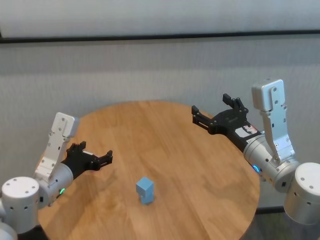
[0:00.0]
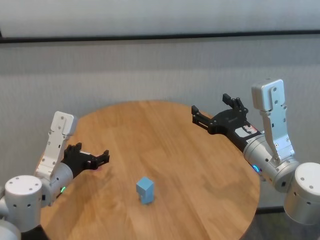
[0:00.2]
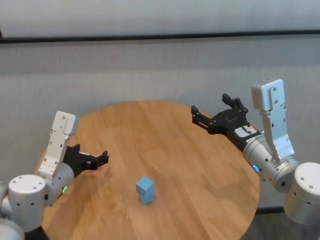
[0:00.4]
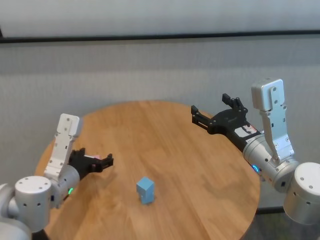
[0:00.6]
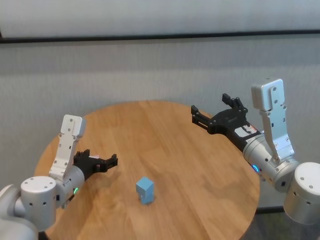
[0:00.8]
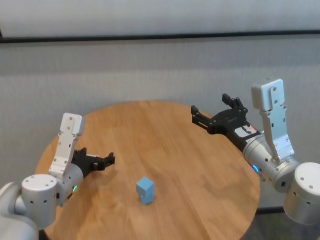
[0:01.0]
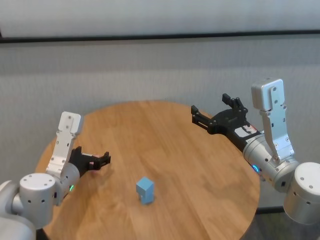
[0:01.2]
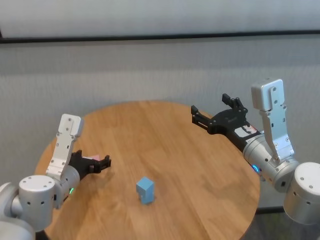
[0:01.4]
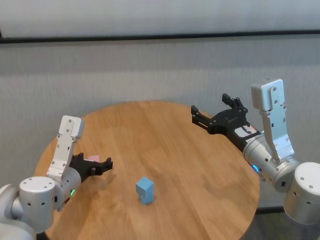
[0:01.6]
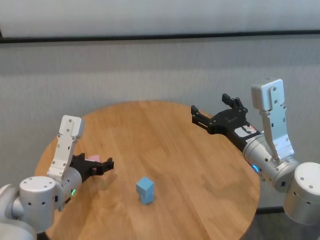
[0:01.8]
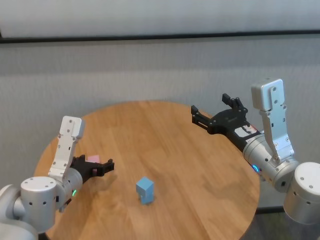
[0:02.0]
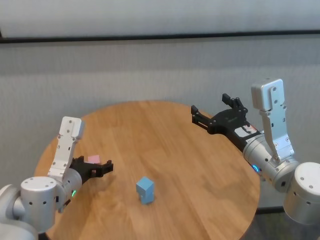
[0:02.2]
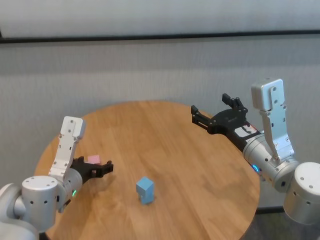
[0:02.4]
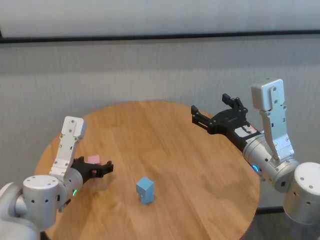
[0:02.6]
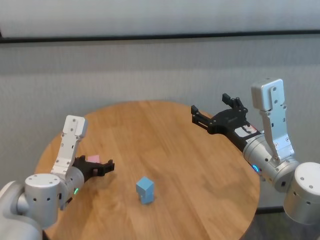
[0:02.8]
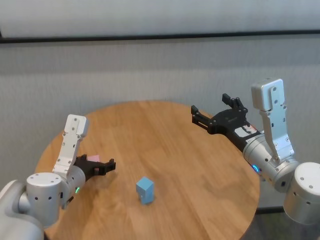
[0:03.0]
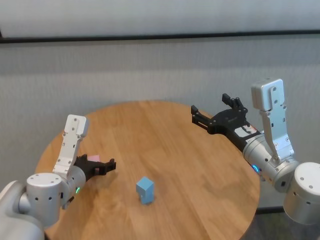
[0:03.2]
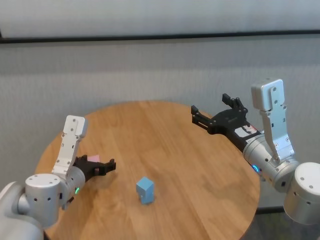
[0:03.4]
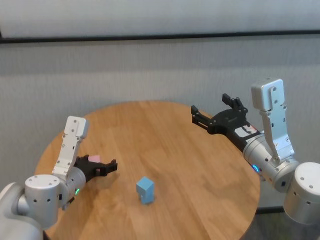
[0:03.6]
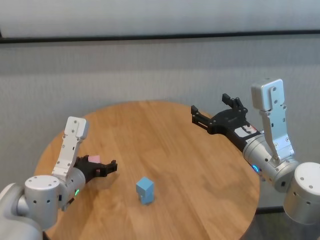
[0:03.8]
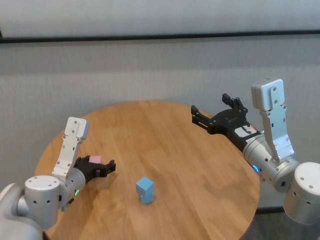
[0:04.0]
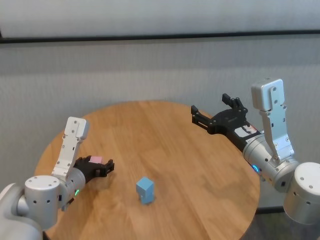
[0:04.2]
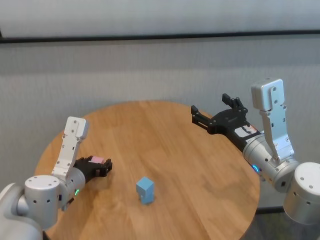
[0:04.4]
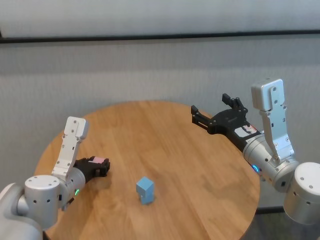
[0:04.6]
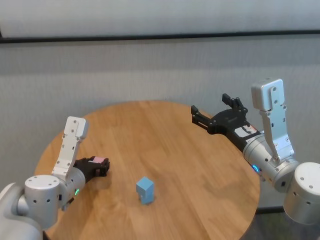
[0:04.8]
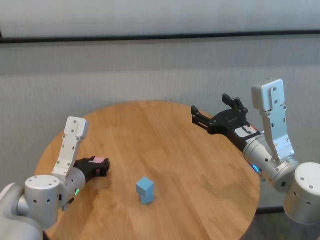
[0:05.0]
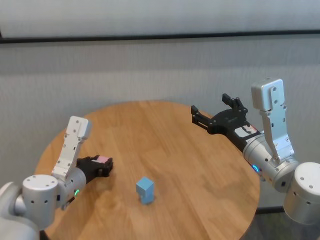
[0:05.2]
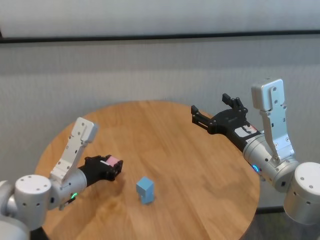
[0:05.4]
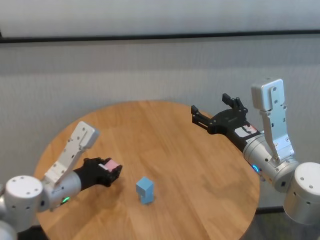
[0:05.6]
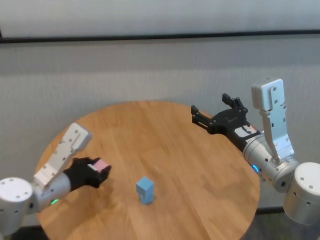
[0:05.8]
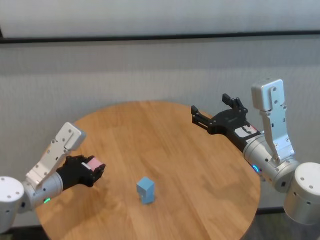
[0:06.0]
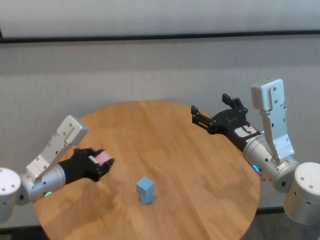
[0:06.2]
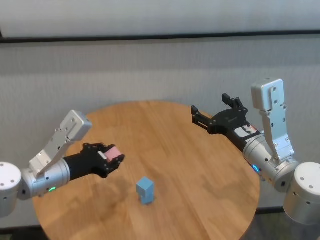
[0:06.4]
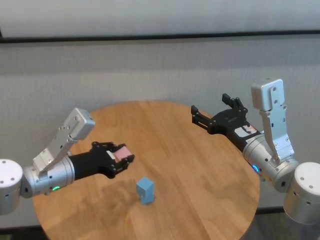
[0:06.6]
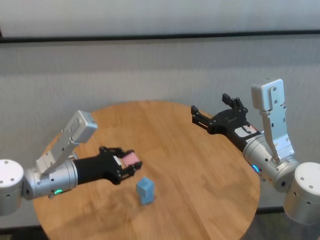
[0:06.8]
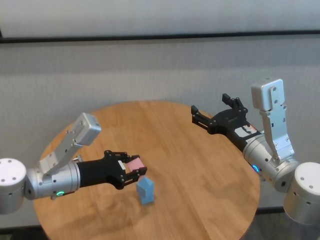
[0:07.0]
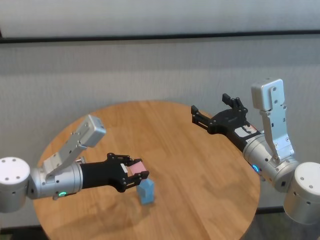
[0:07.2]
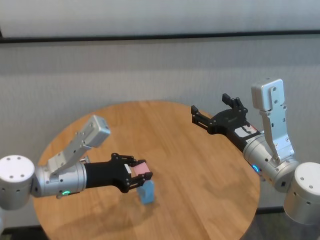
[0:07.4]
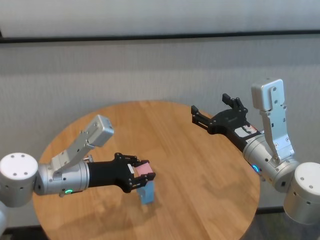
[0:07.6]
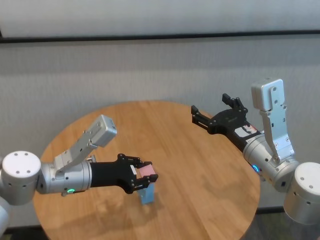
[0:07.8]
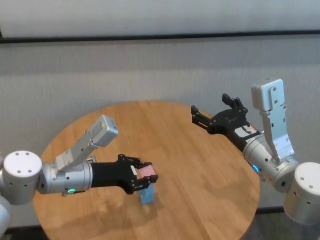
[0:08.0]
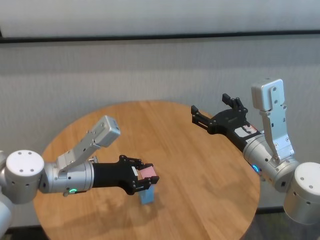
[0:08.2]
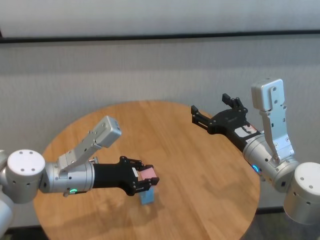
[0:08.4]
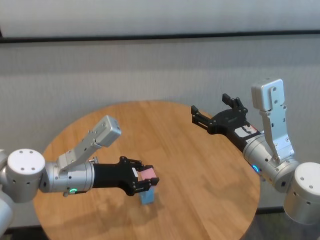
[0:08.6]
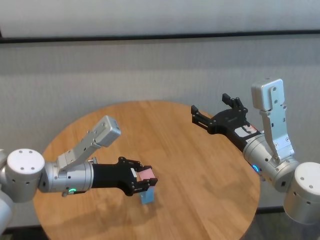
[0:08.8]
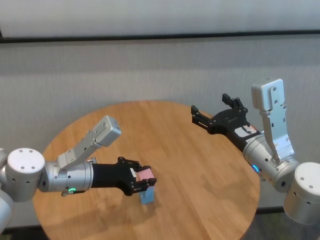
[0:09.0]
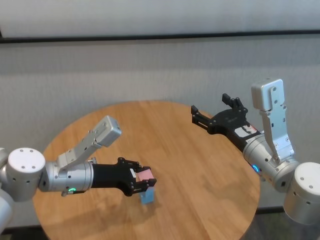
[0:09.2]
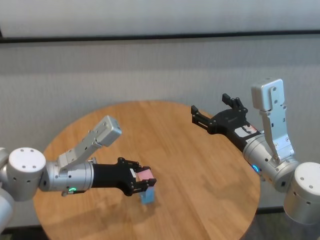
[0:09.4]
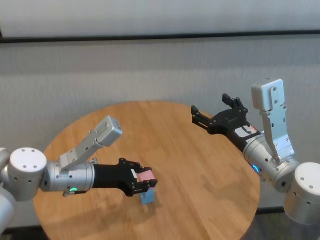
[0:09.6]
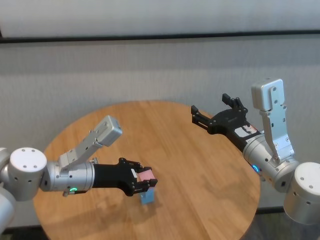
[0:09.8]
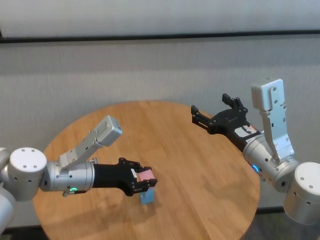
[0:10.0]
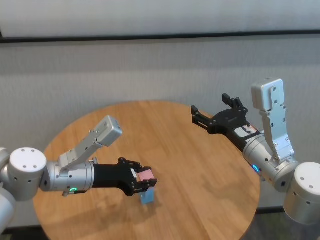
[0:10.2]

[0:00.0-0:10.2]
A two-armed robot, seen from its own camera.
Task of the whole recording: stack building blocks on the table.
Step, 0:00.0 to 0:04.8: Grasp the pink building block with left gripper.

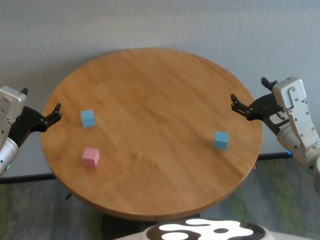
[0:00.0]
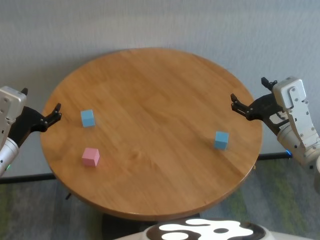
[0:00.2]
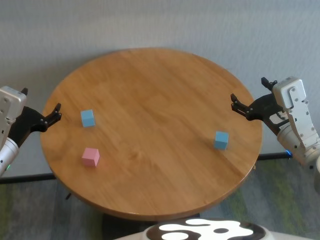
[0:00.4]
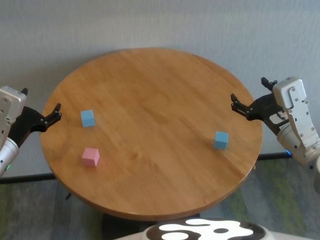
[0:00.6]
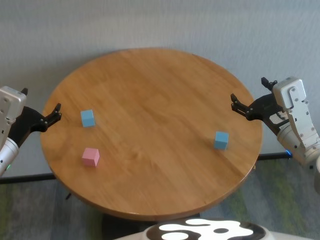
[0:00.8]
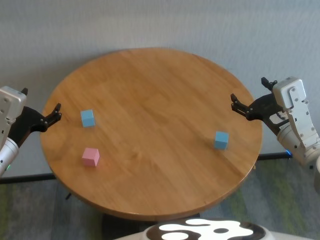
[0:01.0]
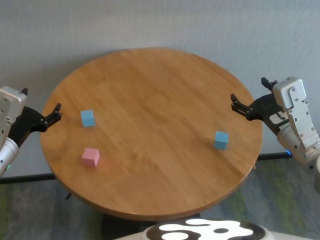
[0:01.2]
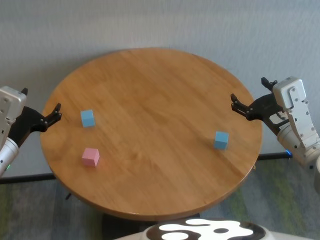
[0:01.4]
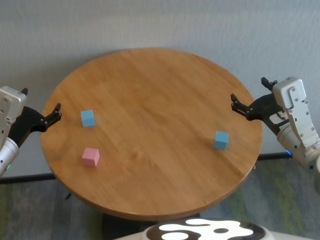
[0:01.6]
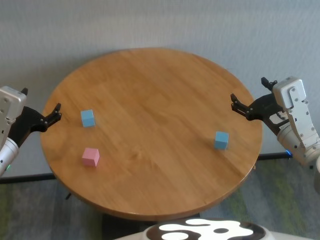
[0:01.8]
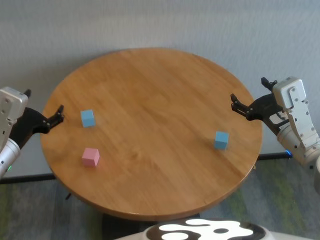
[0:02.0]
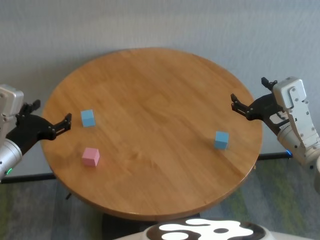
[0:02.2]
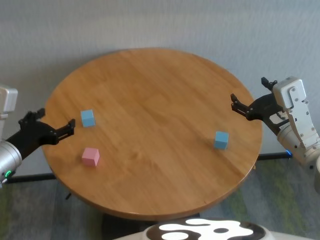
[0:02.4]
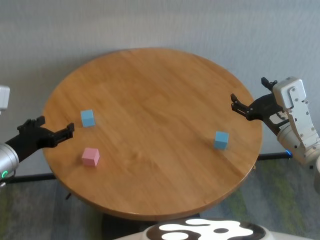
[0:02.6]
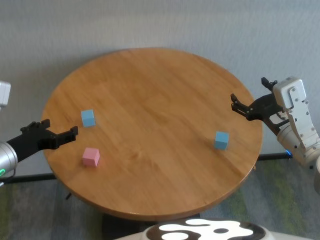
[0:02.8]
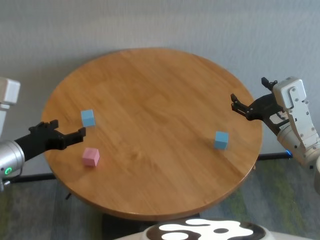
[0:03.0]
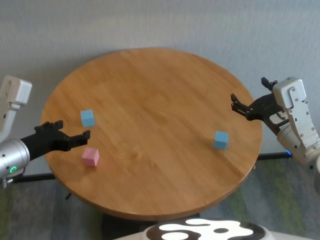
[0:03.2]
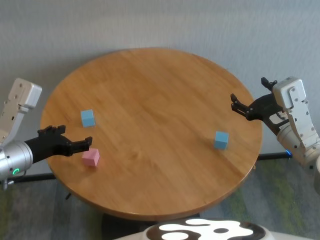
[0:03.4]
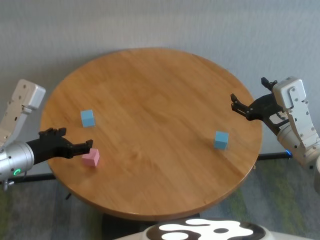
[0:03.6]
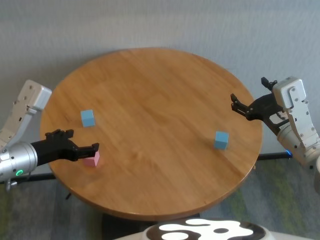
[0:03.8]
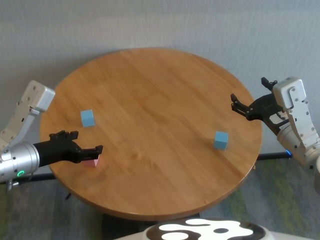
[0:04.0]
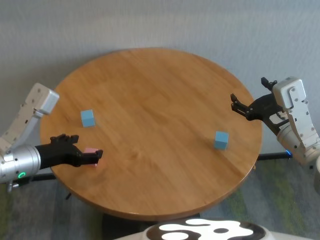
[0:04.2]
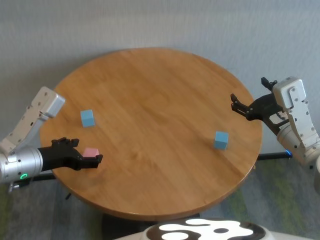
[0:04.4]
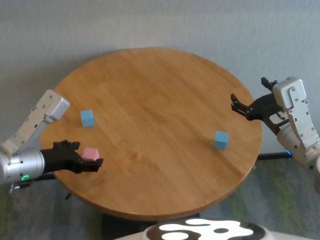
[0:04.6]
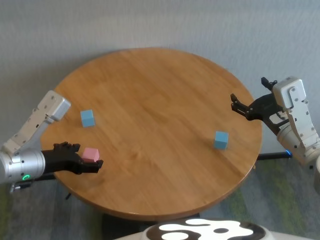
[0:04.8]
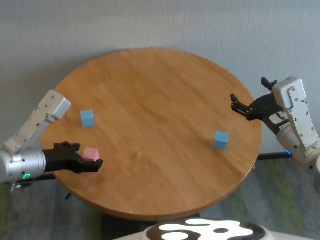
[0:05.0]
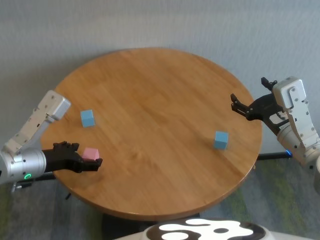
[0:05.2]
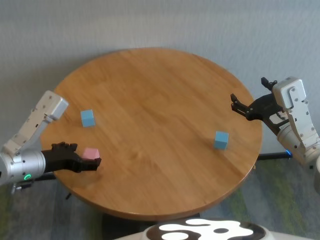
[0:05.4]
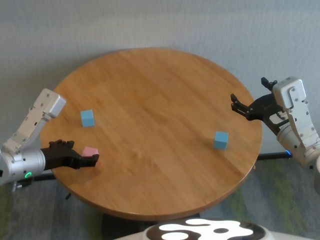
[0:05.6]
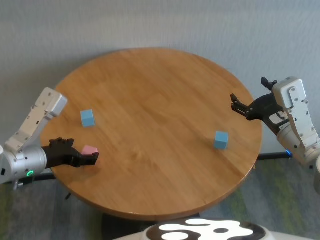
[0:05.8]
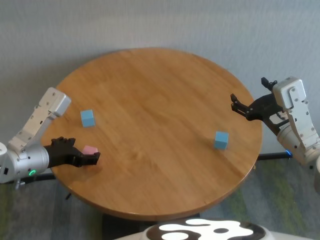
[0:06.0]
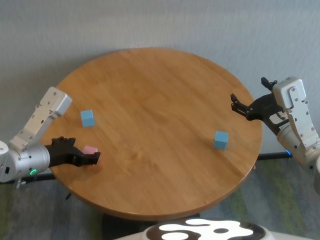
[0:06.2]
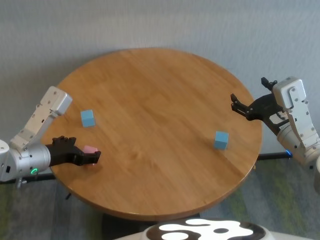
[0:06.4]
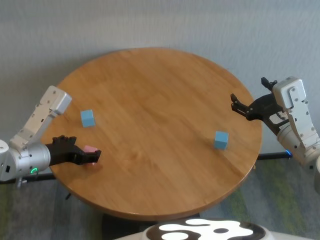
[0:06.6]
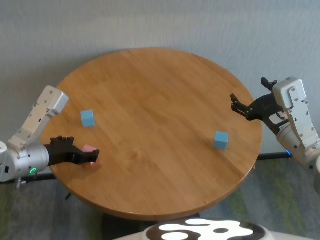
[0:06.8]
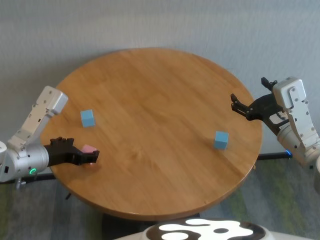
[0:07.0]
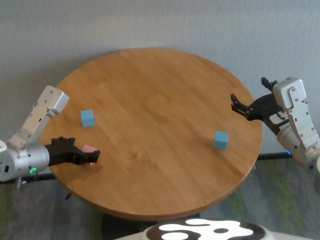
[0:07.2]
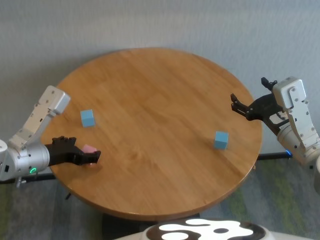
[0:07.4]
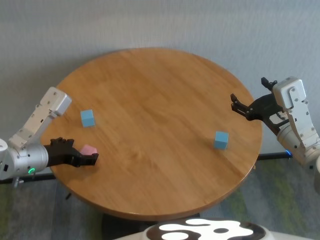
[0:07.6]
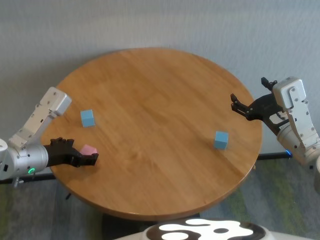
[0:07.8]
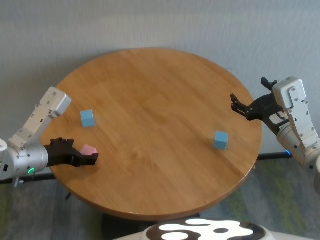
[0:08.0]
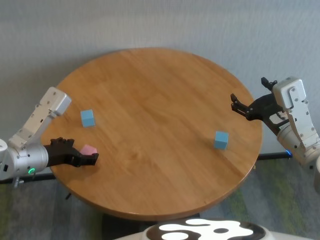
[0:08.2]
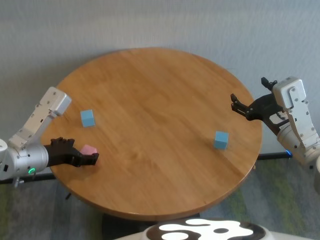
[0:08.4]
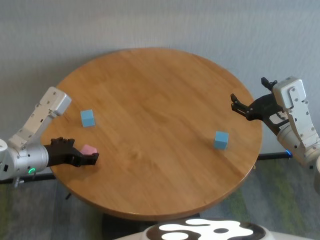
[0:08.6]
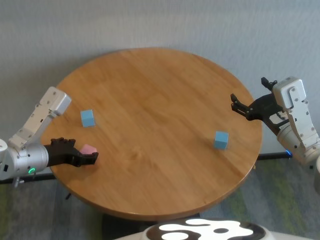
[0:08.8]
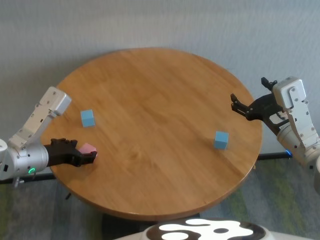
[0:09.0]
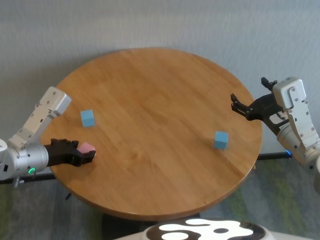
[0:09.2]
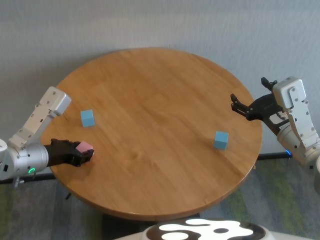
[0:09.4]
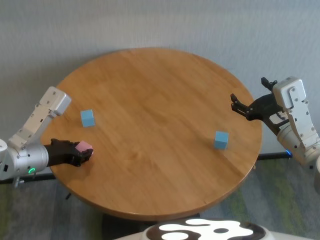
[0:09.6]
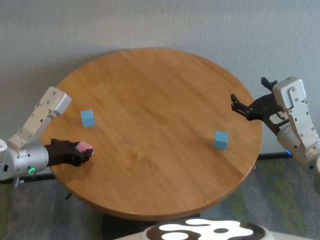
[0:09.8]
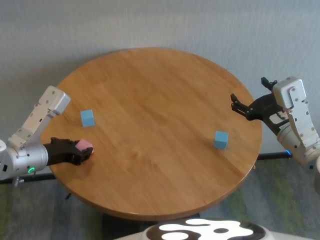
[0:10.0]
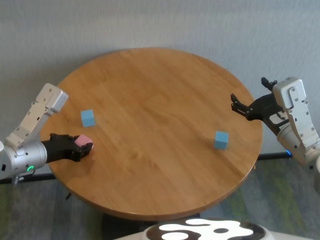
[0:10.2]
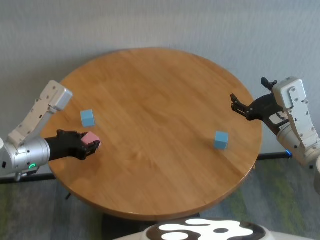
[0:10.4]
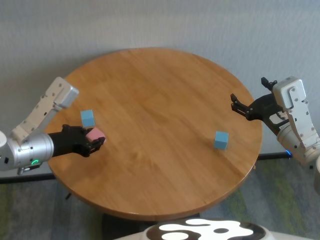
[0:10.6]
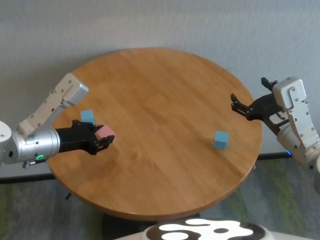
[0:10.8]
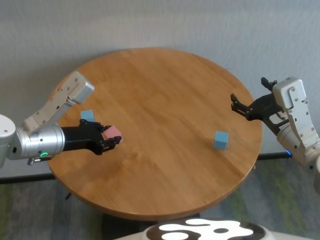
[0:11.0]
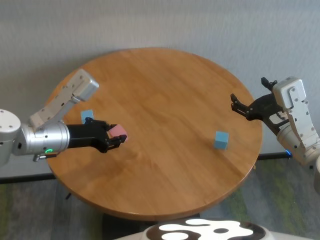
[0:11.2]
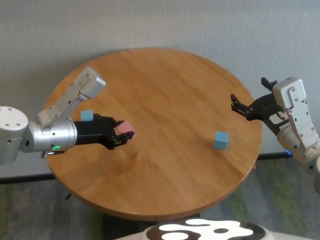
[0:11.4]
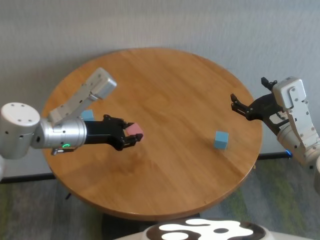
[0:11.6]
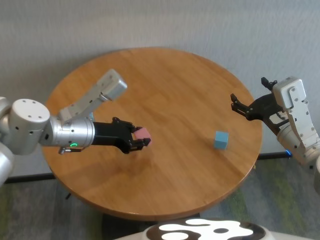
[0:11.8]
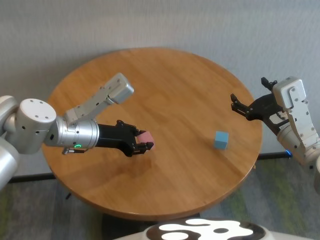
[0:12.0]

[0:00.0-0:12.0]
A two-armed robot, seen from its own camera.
Task of the whole recording: stack building blocks on the table.
Step, 0:00.0 to 0:09.8: Grasp the pink building block with left gripper.

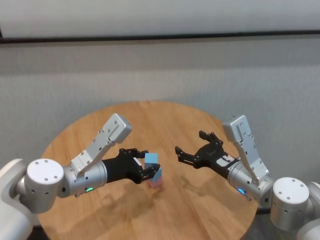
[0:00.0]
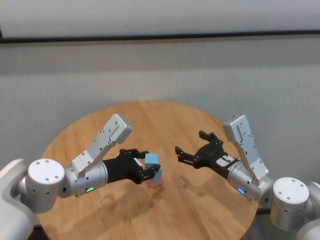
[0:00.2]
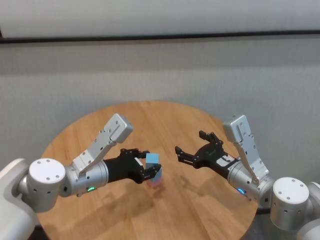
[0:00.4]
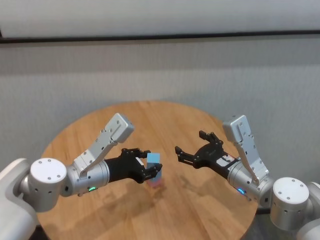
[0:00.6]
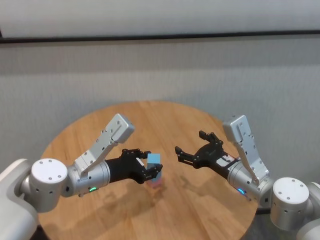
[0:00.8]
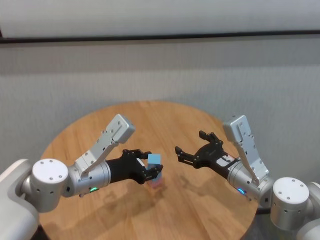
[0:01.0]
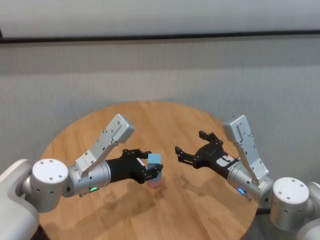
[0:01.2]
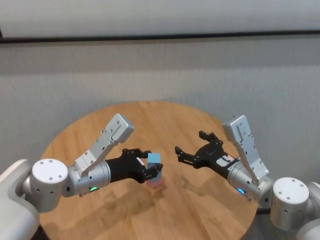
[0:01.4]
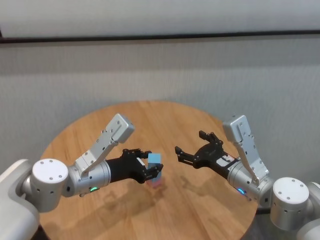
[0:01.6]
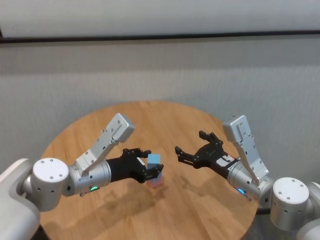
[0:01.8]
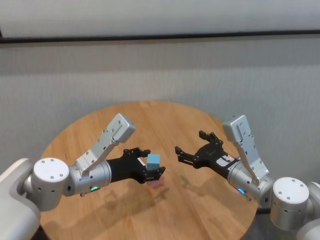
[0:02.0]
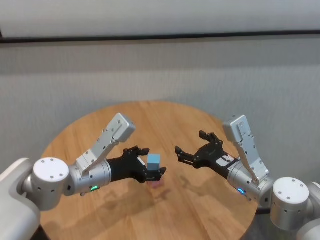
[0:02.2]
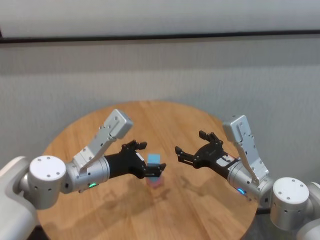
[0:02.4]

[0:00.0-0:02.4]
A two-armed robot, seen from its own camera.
Task of the whole recording: stack building blocks on the table.
Step, 0:00.0 to 0:02.2: Place the blue building block on the blue building blocks with left gripper.
